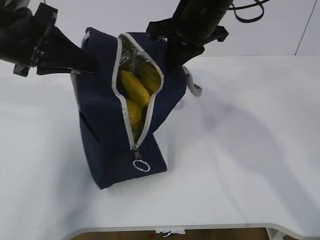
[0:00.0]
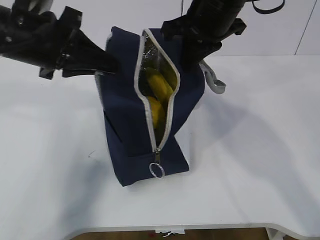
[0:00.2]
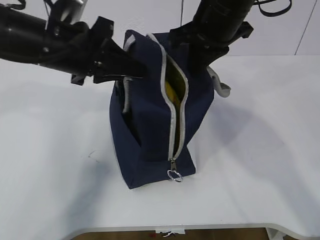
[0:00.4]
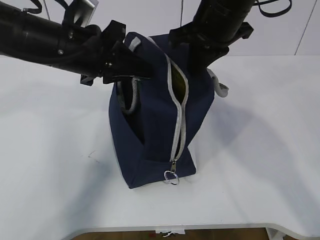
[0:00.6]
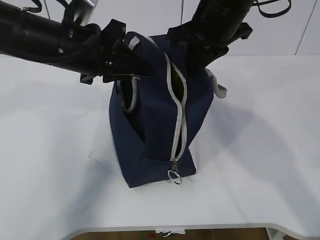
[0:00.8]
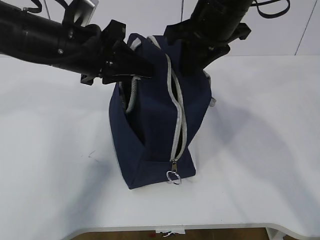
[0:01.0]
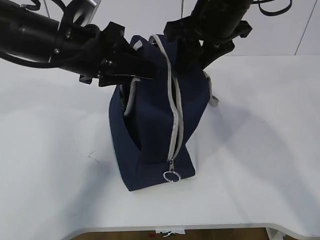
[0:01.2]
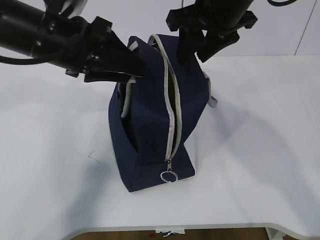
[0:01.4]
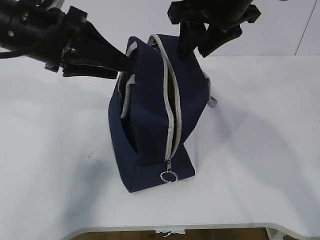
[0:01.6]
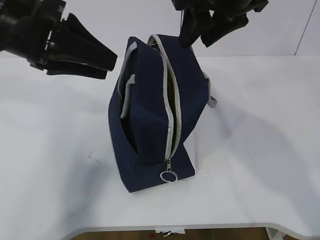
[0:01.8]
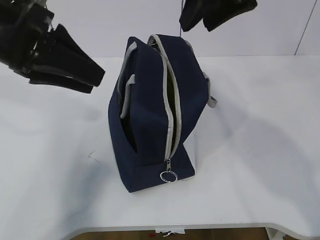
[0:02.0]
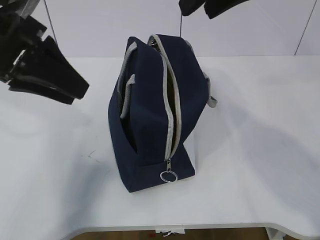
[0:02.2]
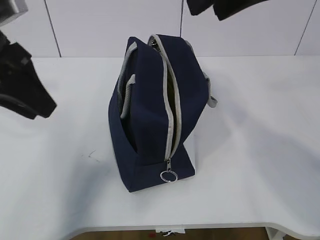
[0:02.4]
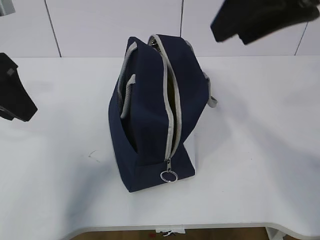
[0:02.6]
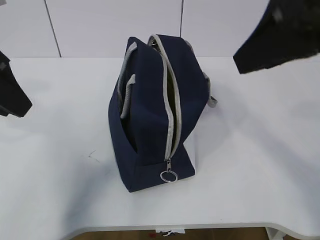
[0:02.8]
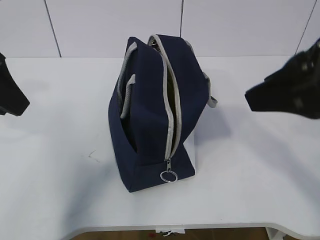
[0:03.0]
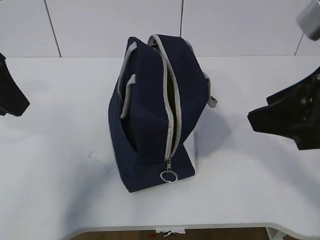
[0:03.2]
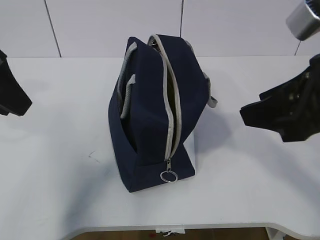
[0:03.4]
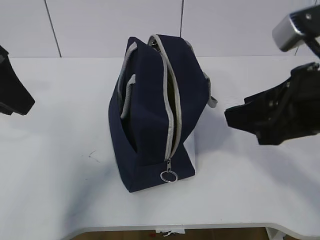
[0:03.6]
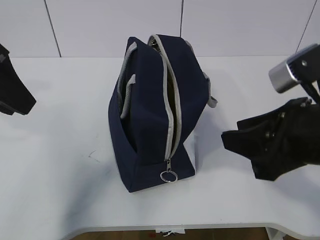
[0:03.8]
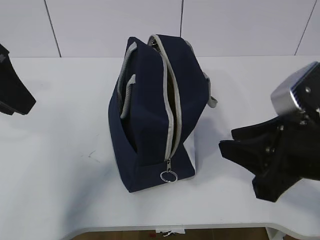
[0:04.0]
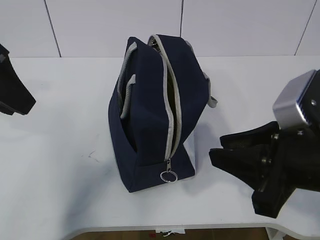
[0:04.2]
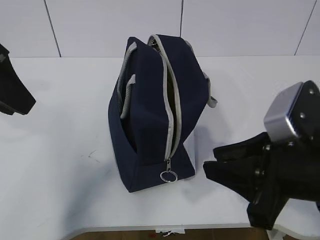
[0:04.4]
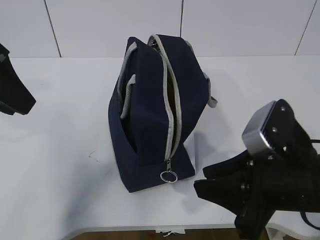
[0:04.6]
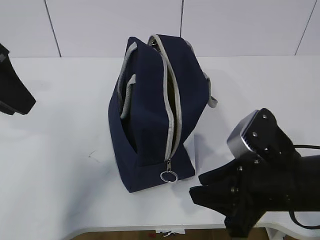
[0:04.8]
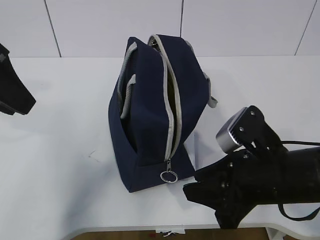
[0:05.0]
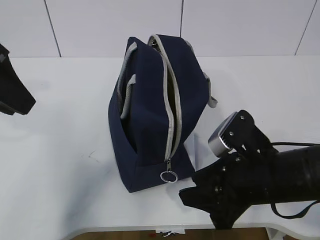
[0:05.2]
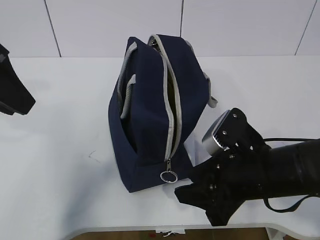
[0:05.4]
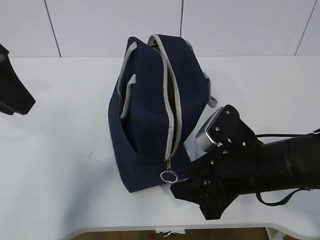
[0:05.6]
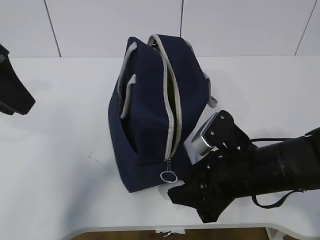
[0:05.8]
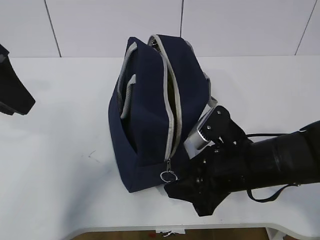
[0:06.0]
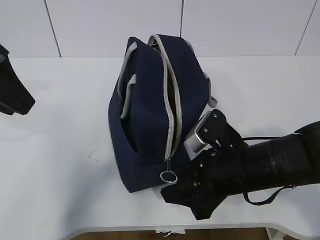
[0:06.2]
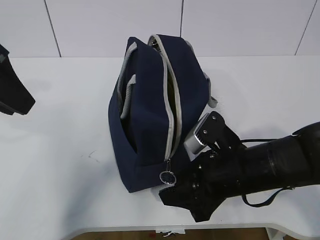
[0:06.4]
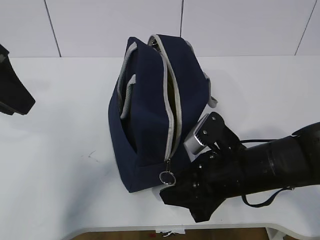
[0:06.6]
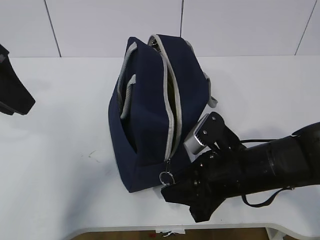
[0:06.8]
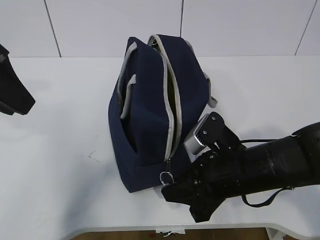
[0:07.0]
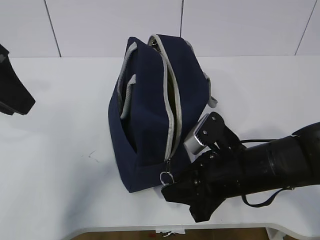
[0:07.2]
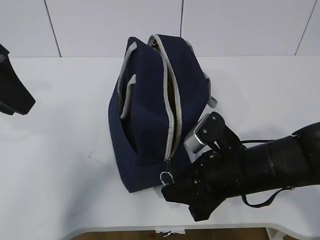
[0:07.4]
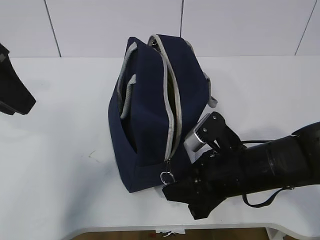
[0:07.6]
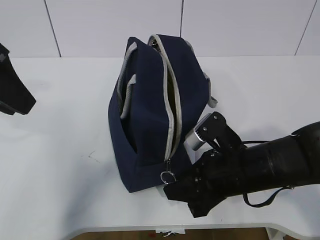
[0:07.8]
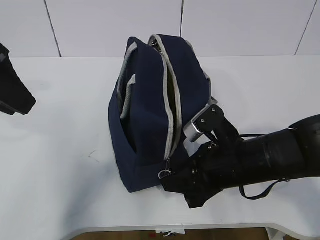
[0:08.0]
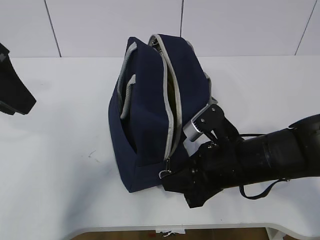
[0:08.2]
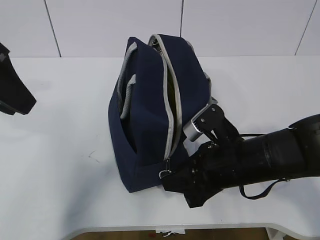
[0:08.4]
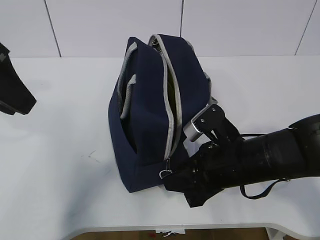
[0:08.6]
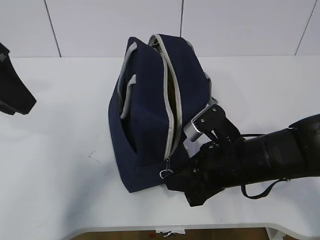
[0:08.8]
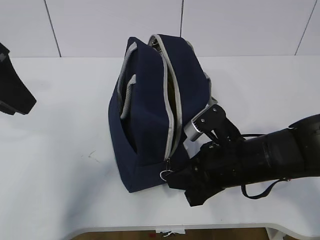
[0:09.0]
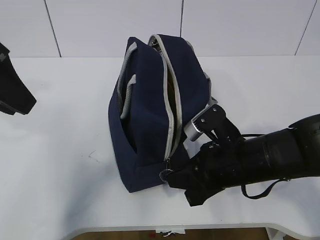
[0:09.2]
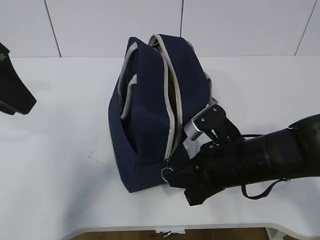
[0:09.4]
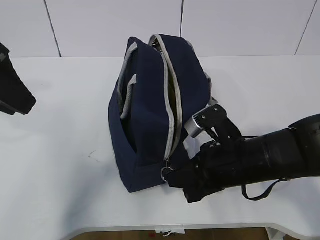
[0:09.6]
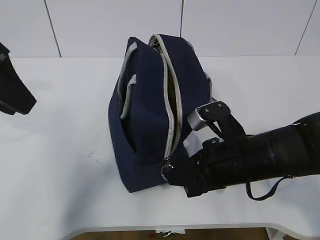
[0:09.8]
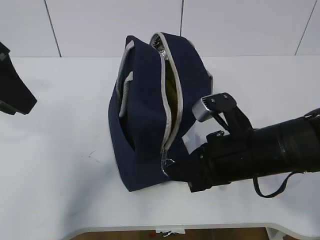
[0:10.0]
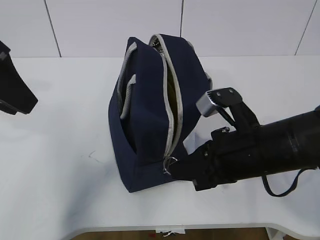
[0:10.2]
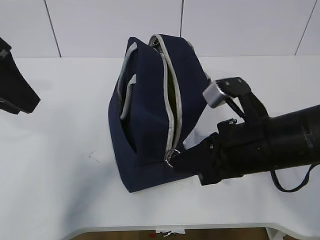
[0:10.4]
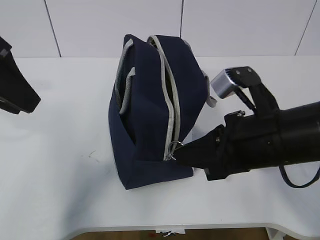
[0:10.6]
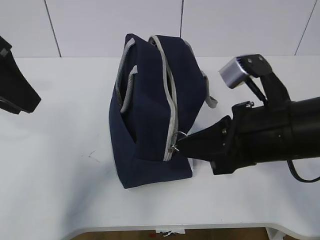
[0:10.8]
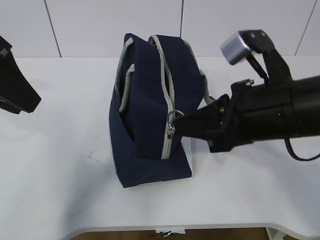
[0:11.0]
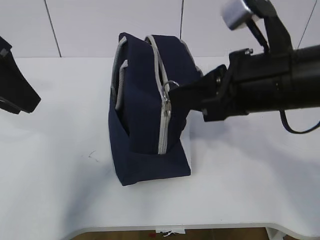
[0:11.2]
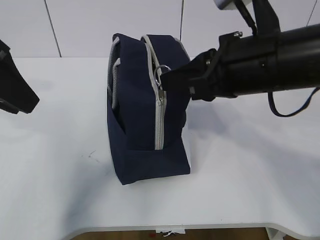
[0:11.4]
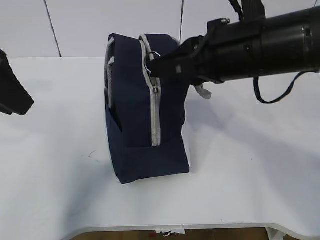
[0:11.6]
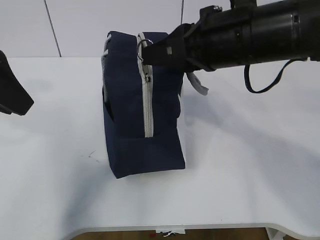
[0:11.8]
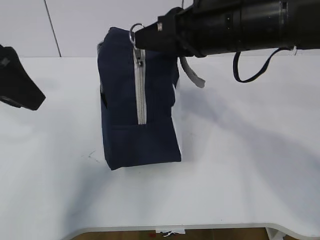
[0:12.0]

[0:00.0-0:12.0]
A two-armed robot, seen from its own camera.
0:00.0 to 0:01.6: The left gripper opens up, while the right gripper changes place by roughly 5 cm, and opens up.
0:01.6 to 0:03.0: The right gripper moves backward and to the right, about 20 cm. Meanwhile the left gripper shifts some 10 cm backward and to the left.
0:03.0 to 0:04.4: The right gripper goes some 10 cm downward.
0:04.4 to 0:06.0: The right gripper travels downward and forward by about 10 cm.
0:06.0 to 0:07.6: The grippers make only small movements.
0:07.6 to 0:09.0: Both grippers stay put.
0:09.0 to 0:10.4: The right gripper travels upward by about 5 cm.
0:10.4 to 0:12.0: The right gripper goes approximately 15 cm upward and forward.

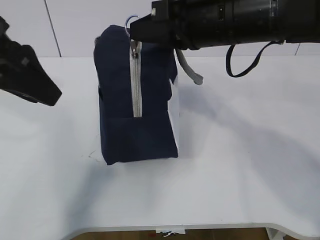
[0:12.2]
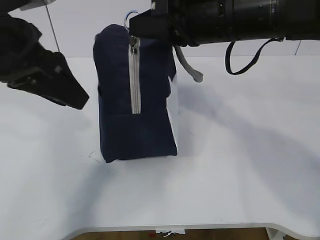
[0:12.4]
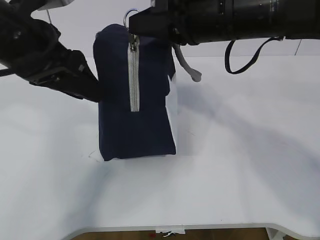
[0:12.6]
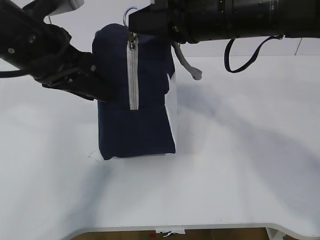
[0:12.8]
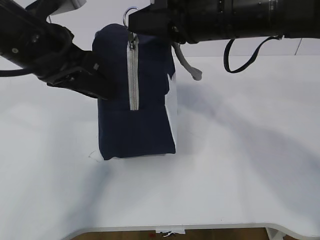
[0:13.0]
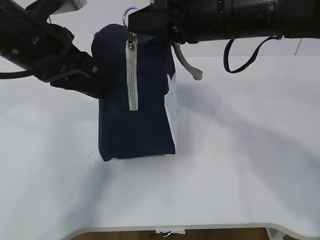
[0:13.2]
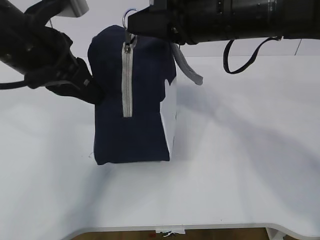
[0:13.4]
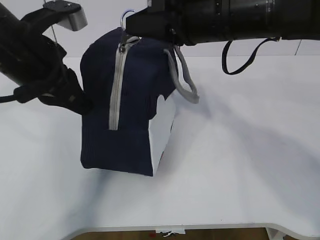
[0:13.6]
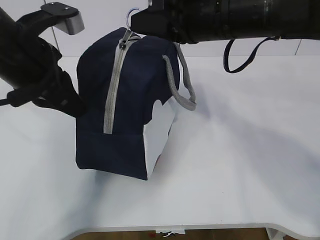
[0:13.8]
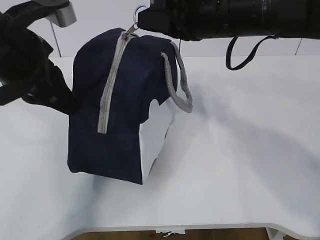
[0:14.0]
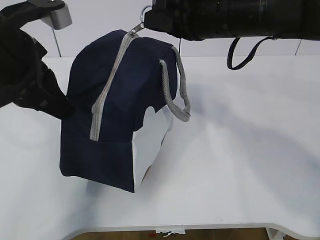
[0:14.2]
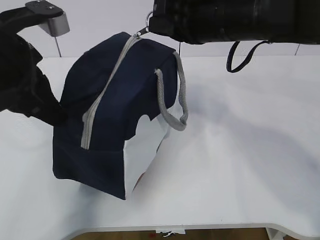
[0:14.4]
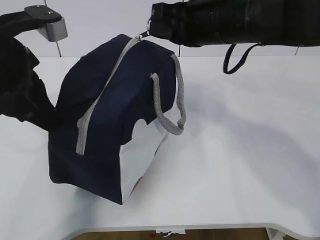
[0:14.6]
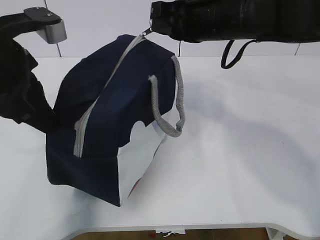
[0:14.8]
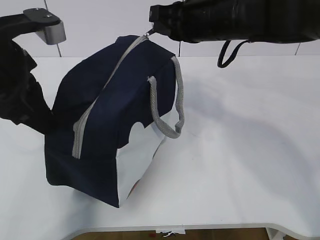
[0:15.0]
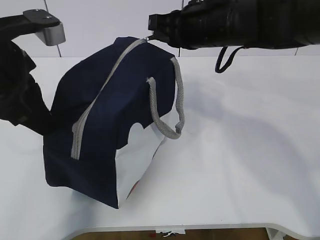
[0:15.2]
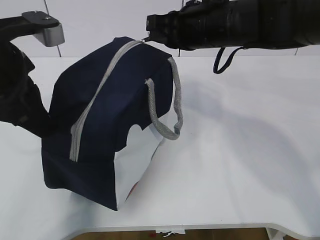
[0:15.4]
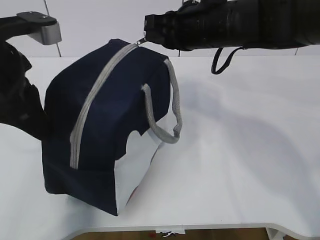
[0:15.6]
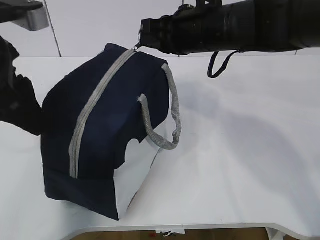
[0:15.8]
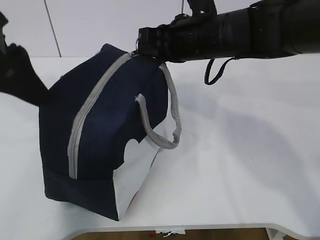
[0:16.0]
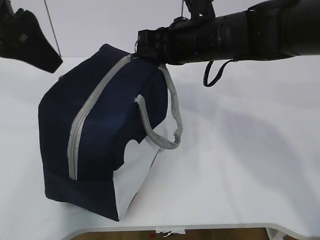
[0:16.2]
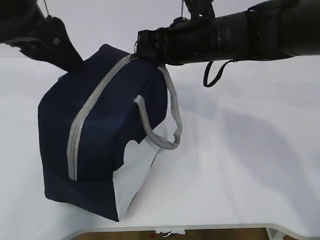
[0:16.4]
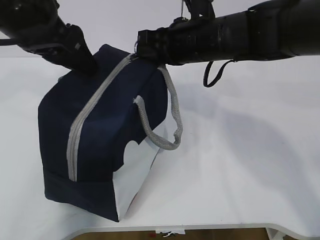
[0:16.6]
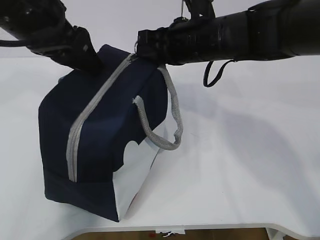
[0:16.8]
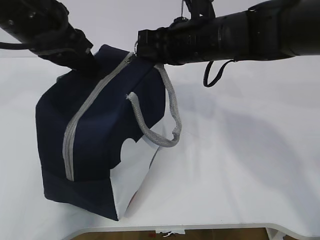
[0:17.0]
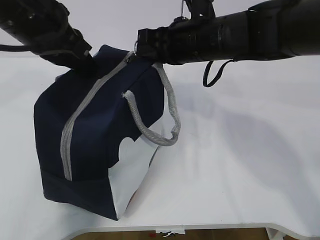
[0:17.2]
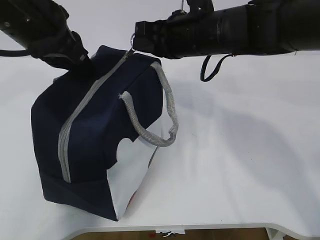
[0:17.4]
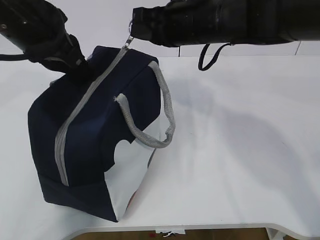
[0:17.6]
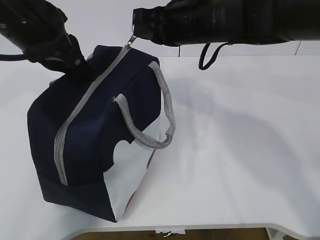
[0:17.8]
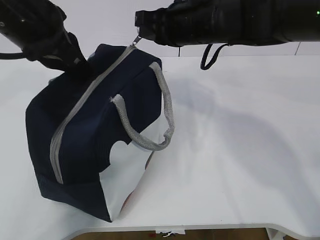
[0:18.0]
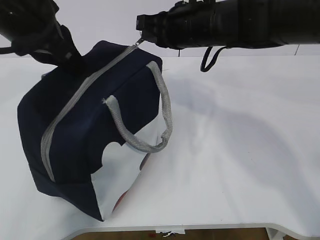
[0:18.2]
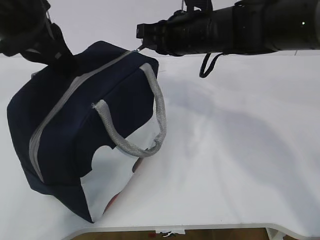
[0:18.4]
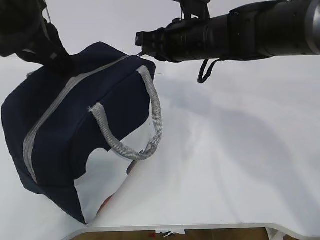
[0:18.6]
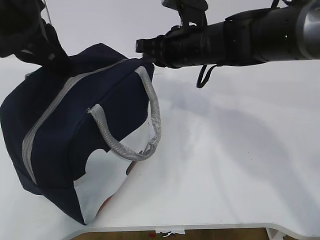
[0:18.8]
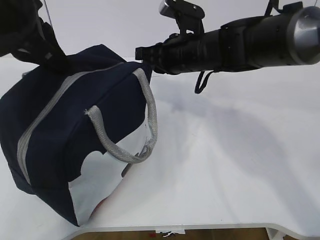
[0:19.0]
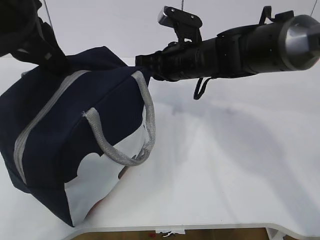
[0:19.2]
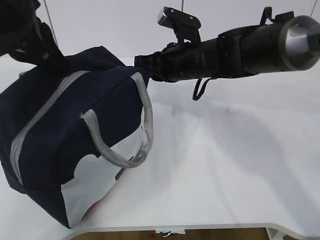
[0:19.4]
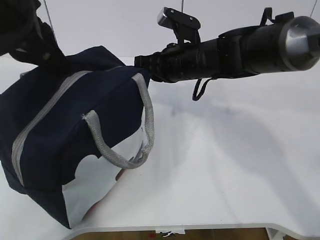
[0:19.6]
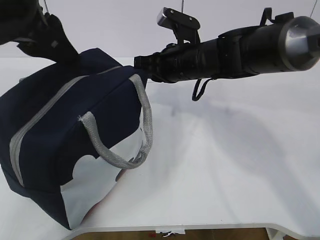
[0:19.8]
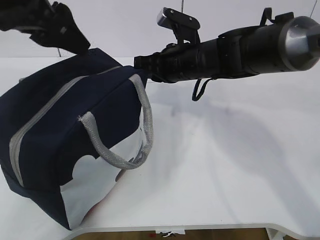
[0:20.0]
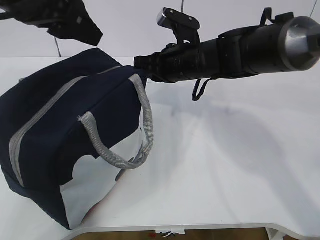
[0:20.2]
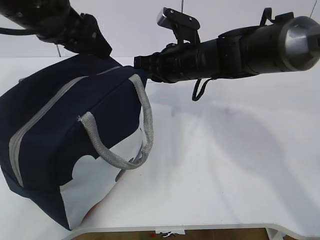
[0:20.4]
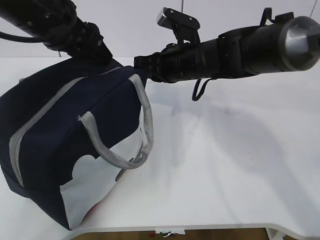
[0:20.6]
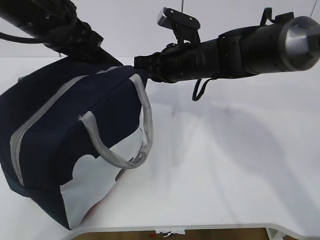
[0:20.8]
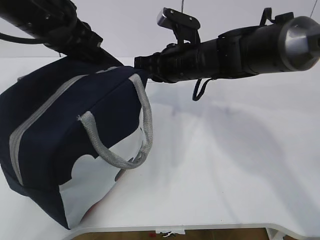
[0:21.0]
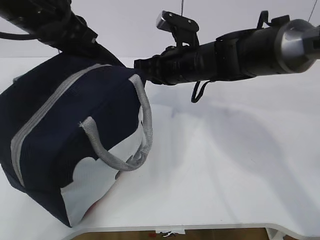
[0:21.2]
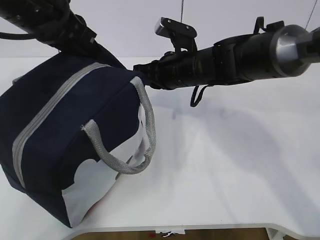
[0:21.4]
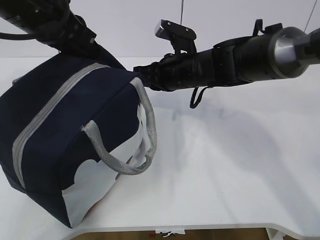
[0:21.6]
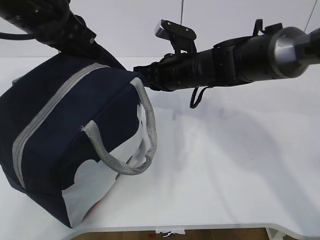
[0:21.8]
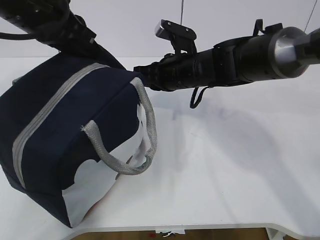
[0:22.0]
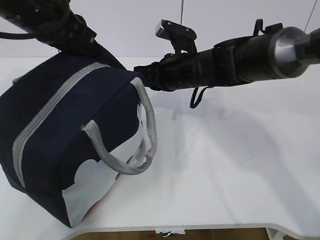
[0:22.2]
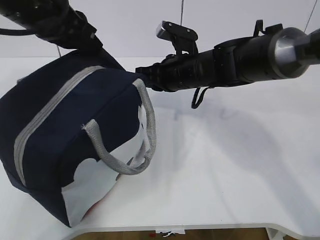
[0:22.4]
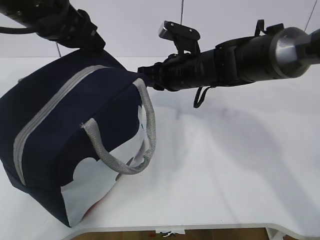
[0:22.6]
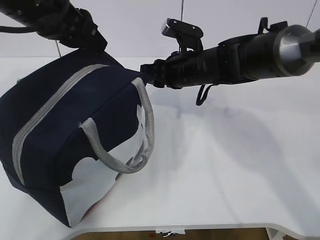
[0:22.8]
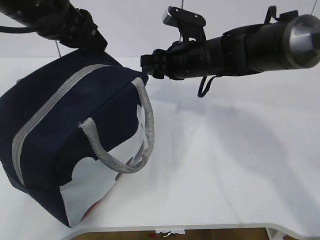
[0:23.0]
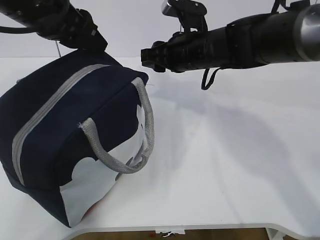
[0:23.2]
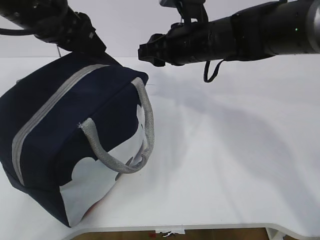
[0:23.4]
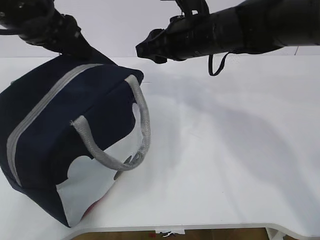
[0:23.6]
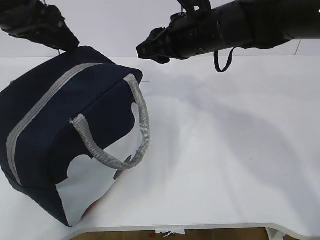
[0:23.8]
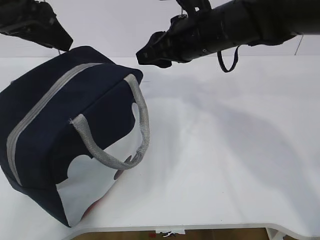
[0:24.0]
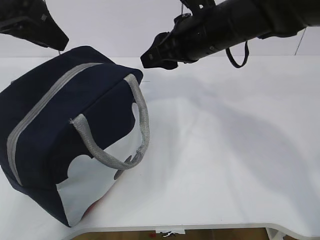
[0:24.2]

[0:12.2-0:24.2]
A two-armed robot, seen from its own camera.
Step, 0:13.4 to 0:13.8: Pull the zipper with your right hand.
0:12.2 to 0:13.8: The left gripper ends up roughly 5 cm from where it was, and closes.
0:13.8 to 0:15.2: The right gripper is displaced forward by about 5 cm.
0:15.2 to 0:16.6: The left gripper moves approximately 5 cm, and opens.
0:16.6 to 0:18.2: The left gripper closes its fingers.
0:18.2 to 0:19.8: The right gripper shifts about 5 cm downward. Meanwhile the left gripper opens.
0:19.8 to 0:21.2: The left gripper ends up approximately 5 cm from where it was, and closes its fingers.
0:21.2 to 0:22.6: The left gripper opens its fingers.
0:22.6 to 0:24.2: The right gripper shifts approximately 10 cm upward and backward. The left gripper moves roughly 5 cm.
